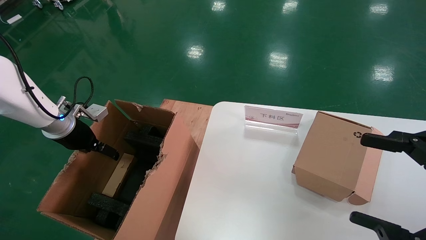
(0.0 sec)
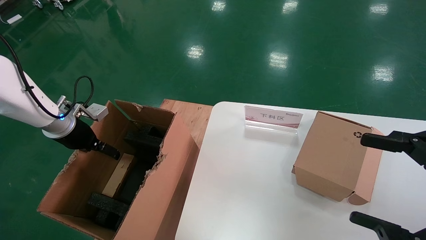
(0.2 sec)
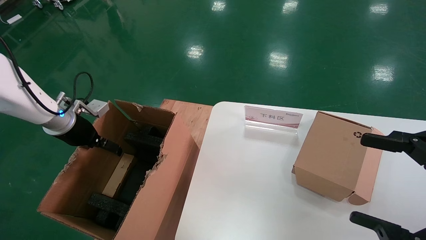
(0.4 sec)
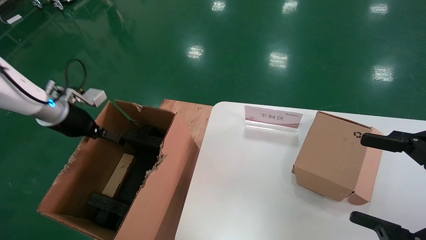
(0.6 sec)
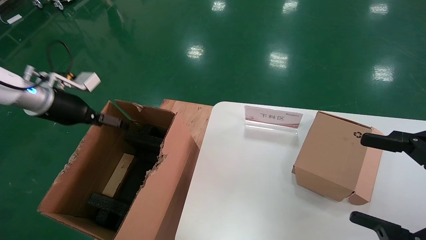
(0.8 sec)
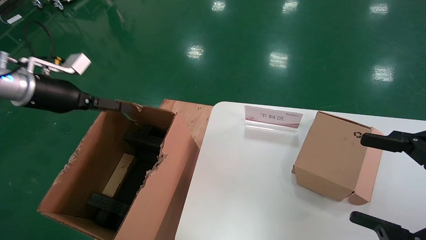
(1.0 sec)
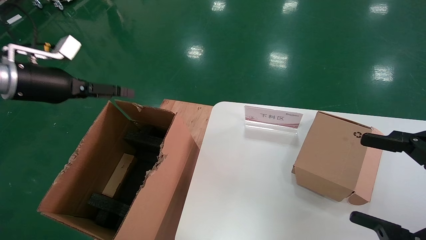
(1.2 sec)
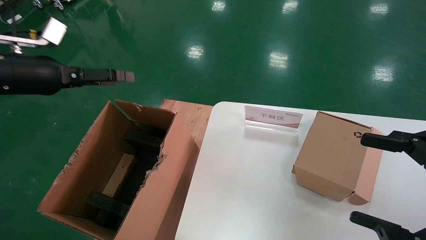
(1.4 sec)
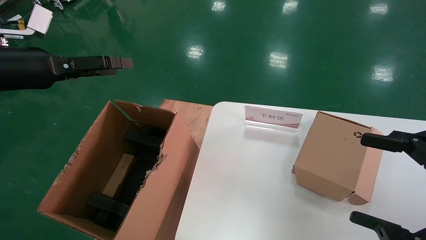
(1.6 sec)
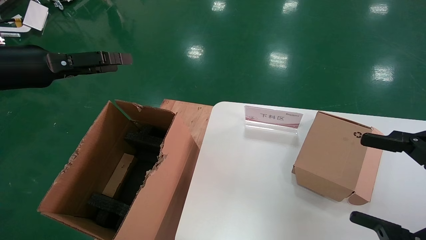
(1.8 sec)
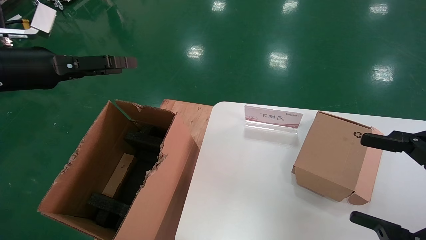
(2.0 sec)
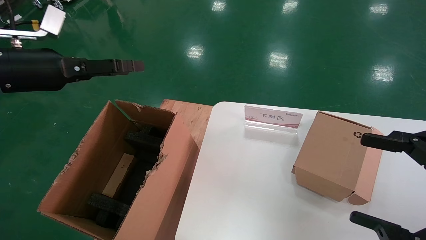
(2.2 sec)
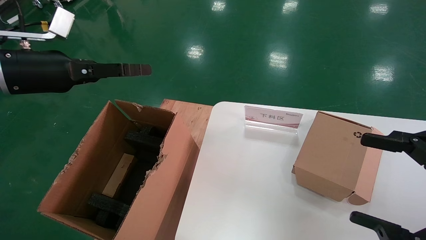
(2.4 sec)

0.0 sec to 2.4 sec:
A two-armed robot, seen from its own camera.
Task of the whole recording: put the box on the table into the big box.
0.0 sec to 1.2 sec: The left gripper is displaced upward and backward by roughly 15 cm.
1.2 sec to 2.4 sec: The grippers move only a little.
